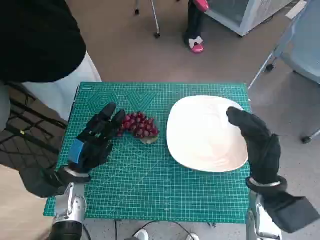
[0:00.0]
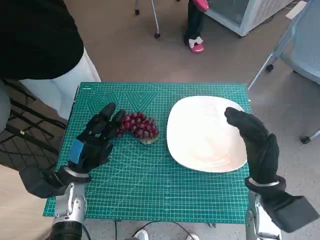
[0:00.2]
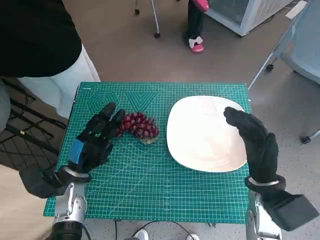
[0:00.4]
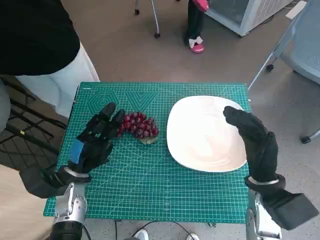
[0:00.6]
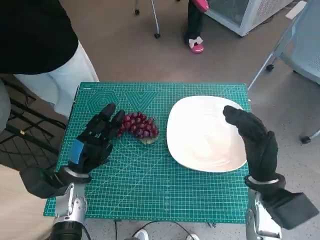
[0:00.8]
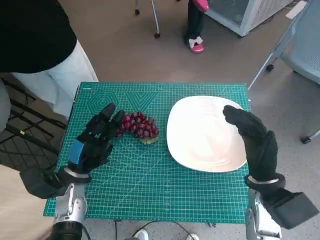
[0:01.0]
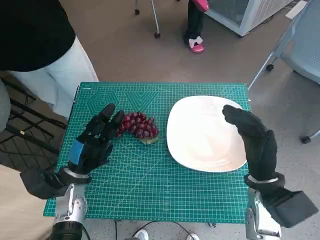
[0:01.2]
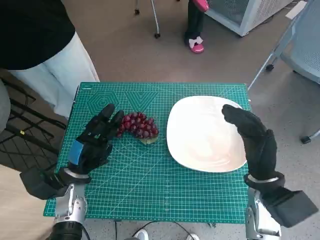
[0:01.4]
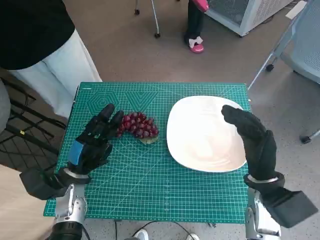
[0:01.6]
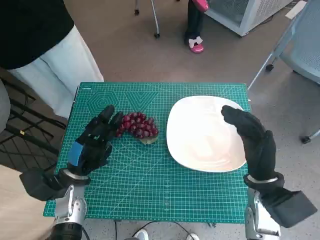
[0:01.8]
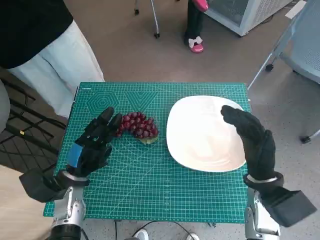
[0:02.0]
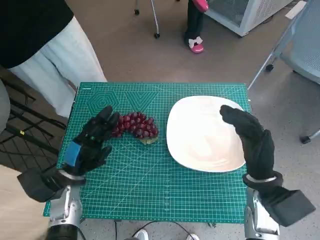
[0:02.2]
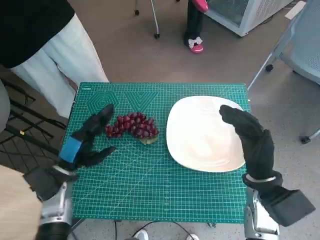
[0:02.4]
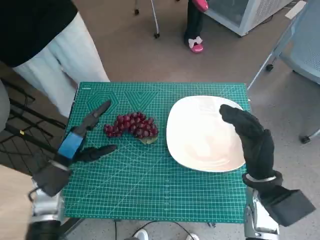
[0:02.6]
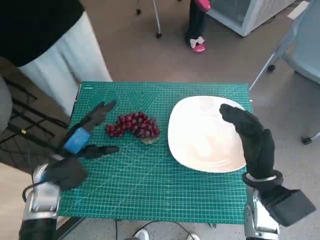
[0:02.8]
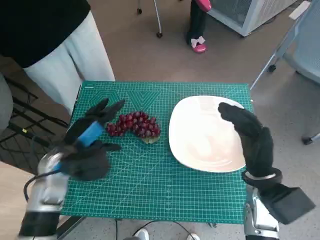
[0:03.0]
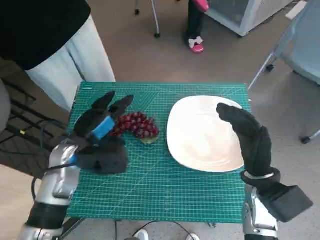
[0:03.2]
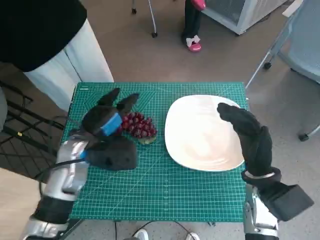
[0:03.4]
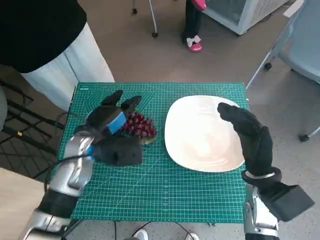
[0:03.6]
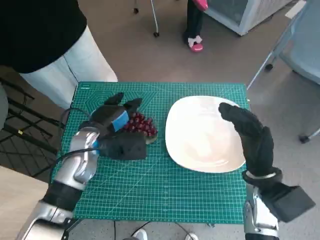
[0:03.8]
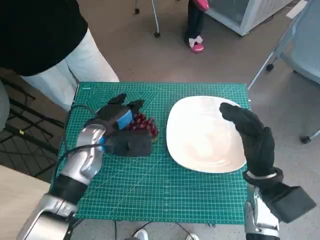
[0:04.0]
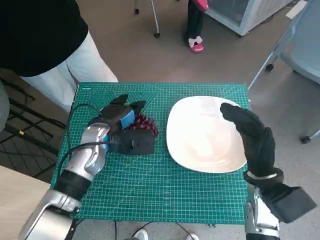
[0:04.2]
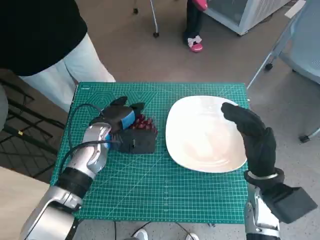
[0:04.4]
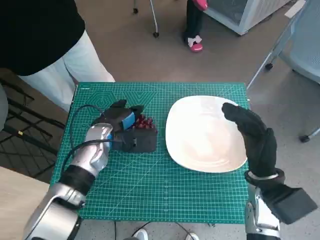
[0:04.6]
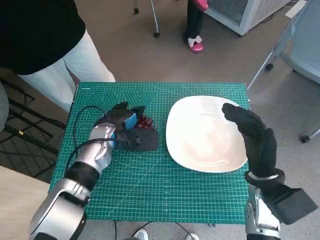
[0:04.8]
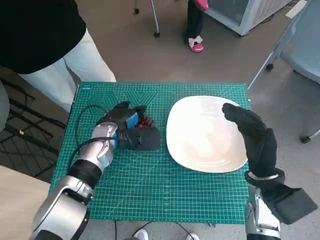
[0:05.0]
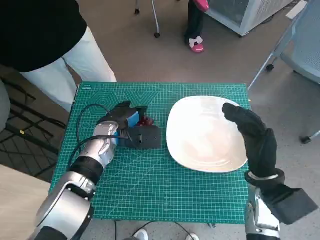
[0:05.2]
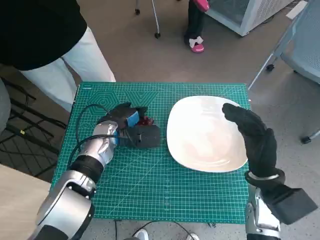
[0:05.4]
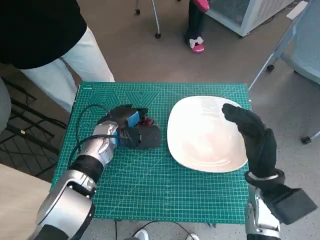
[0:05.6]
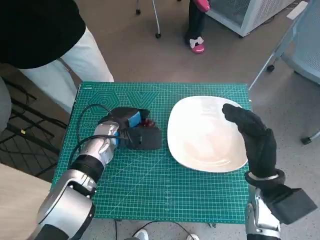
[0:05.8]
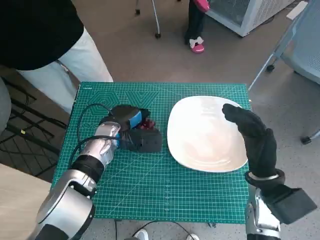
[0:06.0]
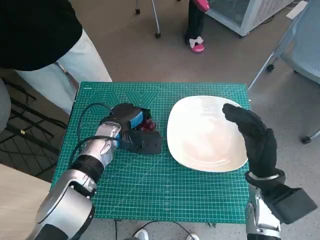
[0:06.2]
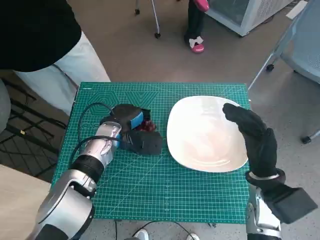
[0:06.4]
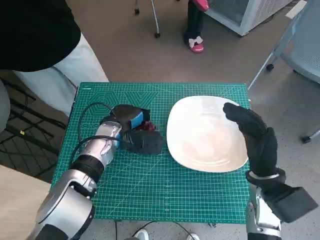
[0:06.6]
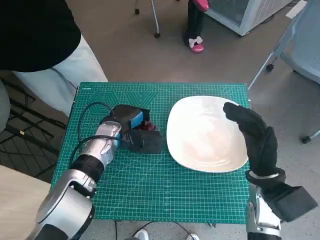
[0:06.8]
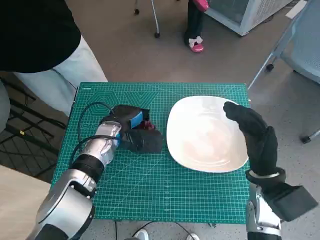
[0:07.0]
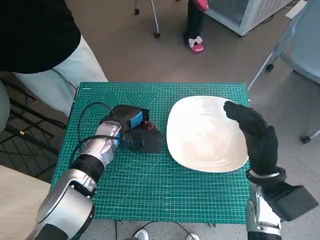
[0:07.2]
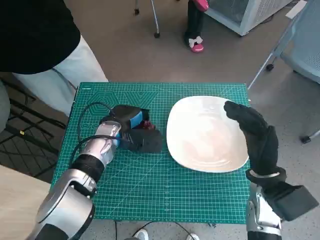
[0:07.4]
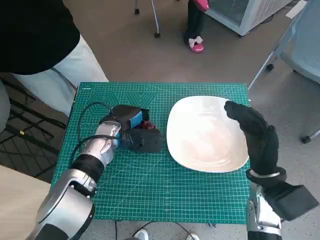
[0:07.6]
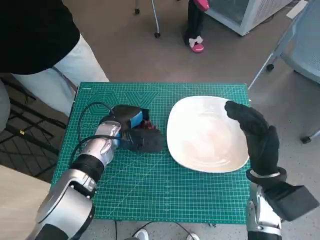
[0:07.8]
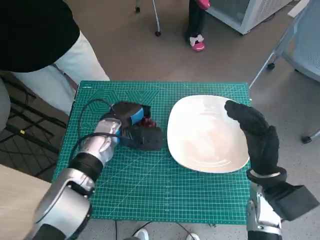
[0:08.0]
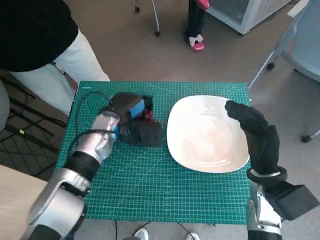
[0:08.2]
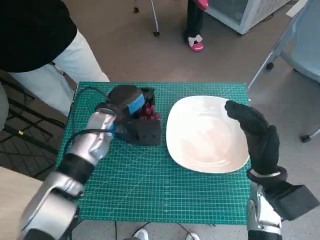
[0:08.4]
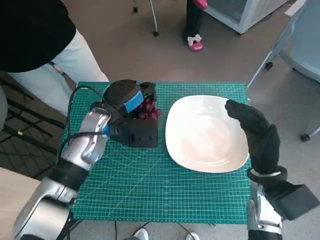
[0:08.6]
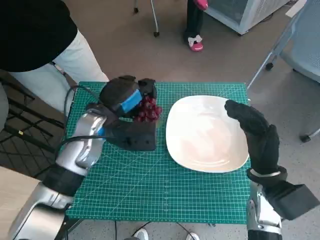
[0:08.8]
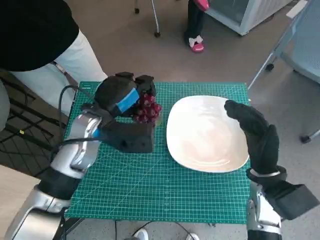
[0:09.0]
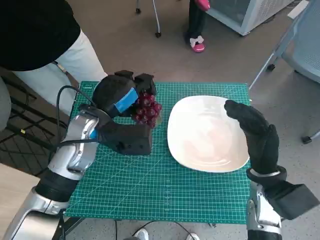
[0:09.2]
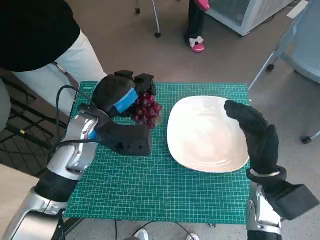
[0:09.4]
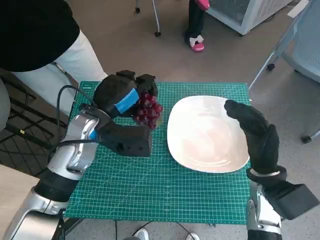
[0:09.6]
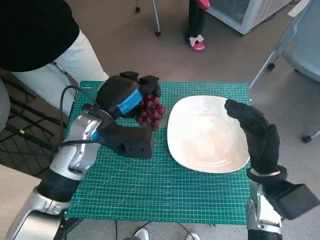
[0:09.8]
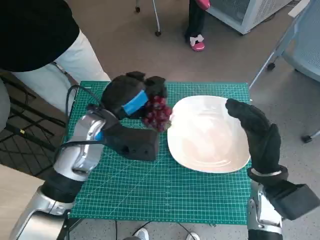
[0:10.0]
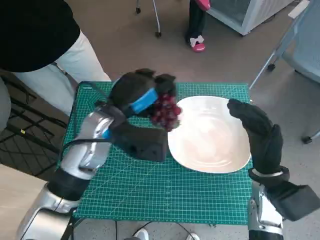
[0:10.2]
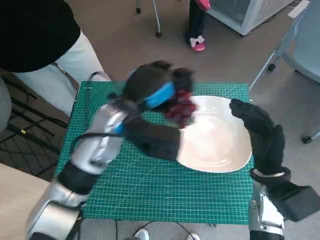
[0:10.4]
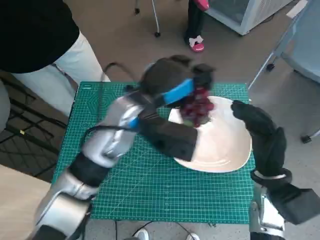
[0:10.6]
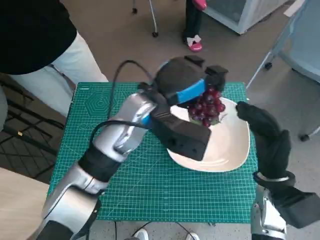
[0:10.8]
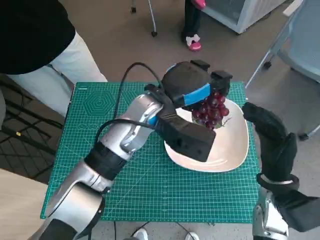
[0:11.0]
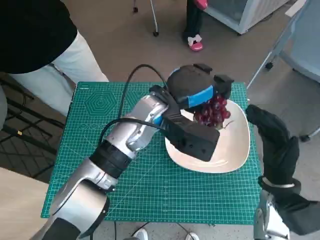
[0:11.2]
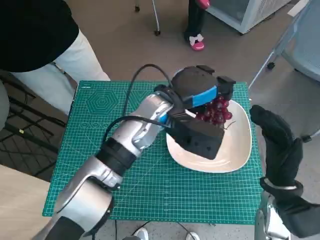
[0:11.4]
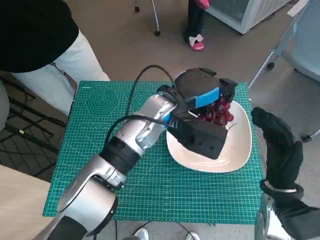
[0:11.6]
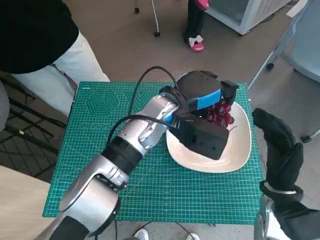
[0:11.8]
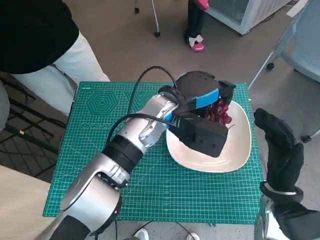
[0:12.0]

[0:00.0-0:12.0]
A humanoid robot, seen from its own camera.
Task of the whole recording: Pick up the grapes and put them on the plate.
Step, 0.0 to 6.4 s: Grasp the grapes with left hand.
1.6 to 3.0 s: The left hand is displaced upward by about 10 cm.
3.0 to 4.4 s: The left hand travels to the right and forward by about 10 cm.
4.4 to 6.0 s: There are only small adjustments of the hands.
6.0 to 7.6 s: The two hands keep their place.
7.6 to 9.0 s: The left hand moves upward, roughly 10 cm.
9.0 to 10.4 s: The left hand is displaced to the right by roughly 5 cm.
10.4 to 12.0 s: The left hand is displaced to the right by some 10 cm.

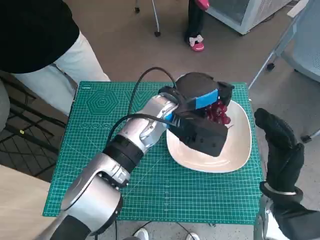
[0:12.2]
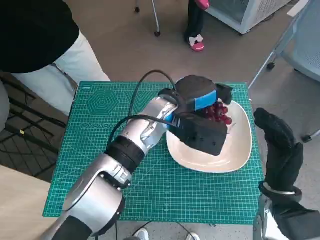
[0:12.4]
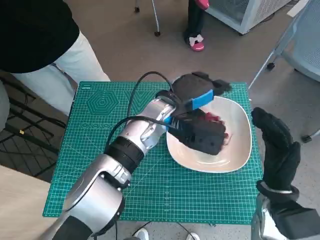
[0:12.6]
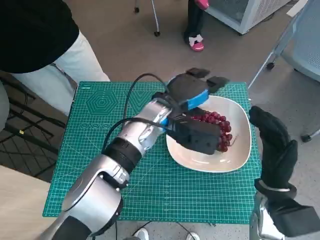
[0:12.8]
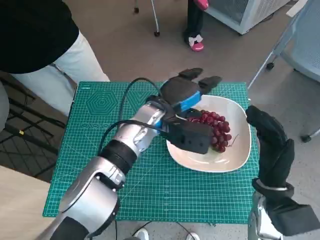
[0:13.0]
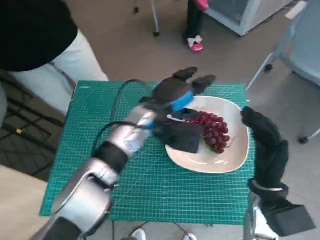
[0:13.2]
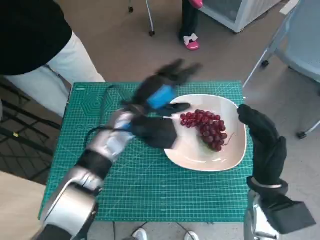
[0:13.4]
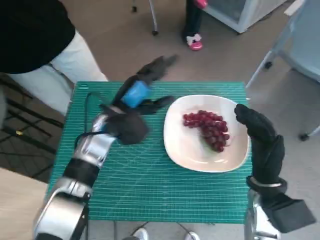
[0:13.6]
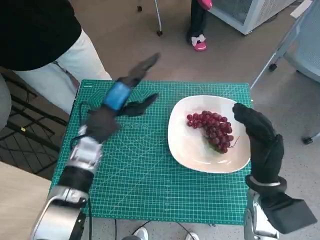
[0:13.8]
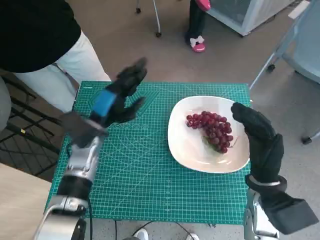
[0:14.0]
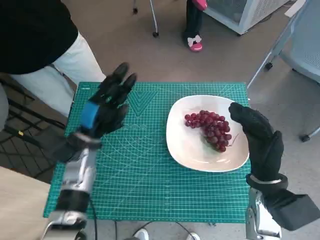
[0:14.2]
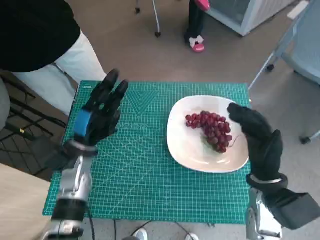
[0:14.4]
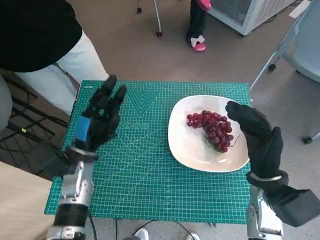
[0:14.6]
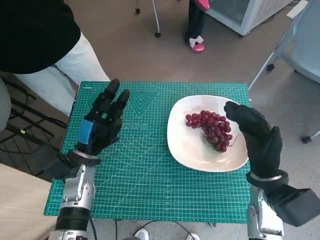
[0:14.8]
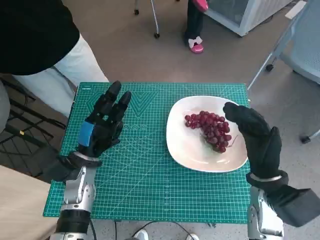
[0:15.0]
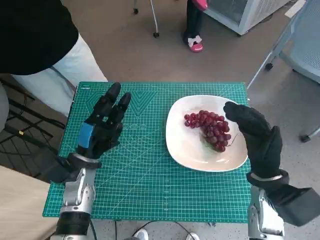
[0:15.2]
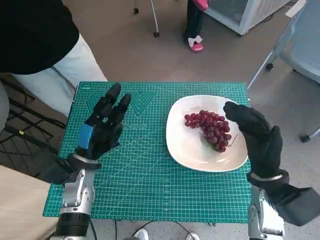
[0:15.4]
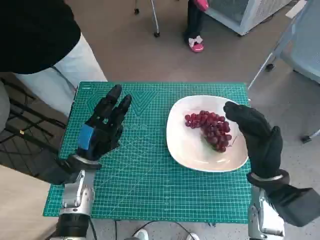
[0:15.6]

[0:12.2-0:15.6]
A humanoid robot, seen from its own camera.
Task of the whole recording: Pick up the grapes and put them on the plate.
12.2 to 13.8 s: The left hand heads to the left, covering about 15 cm.
13.8 to 15.6 s: The left hand travels backward and downward by approximately 10 cm.

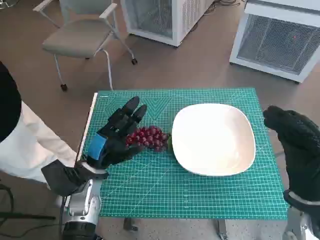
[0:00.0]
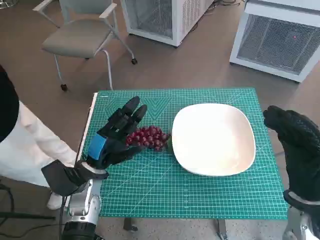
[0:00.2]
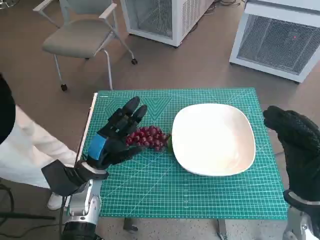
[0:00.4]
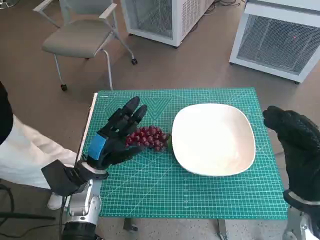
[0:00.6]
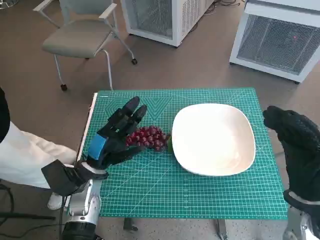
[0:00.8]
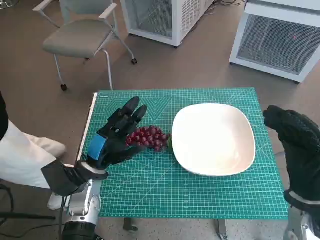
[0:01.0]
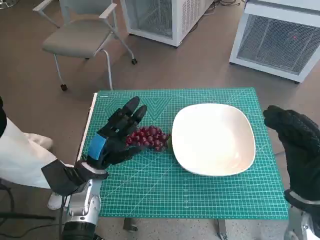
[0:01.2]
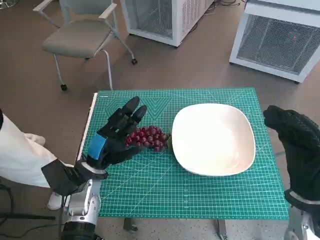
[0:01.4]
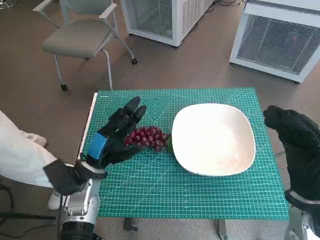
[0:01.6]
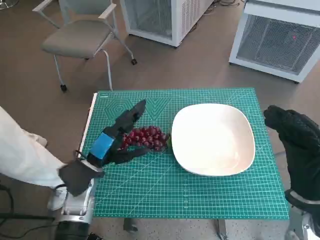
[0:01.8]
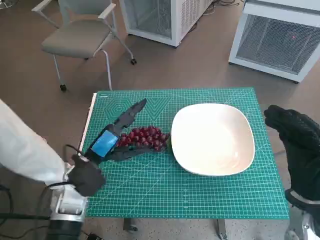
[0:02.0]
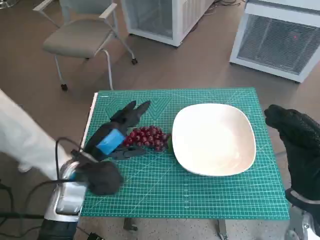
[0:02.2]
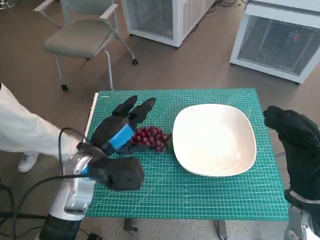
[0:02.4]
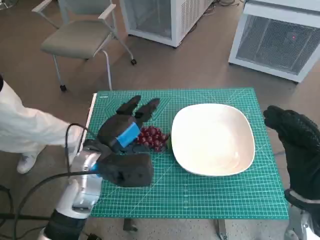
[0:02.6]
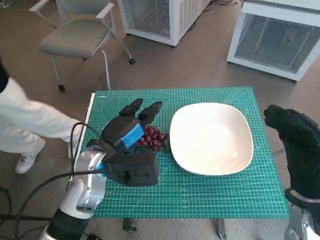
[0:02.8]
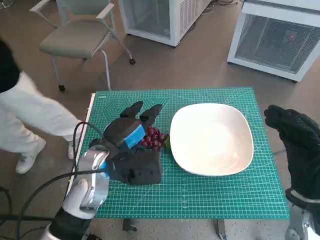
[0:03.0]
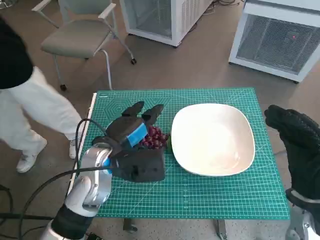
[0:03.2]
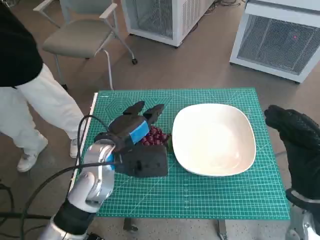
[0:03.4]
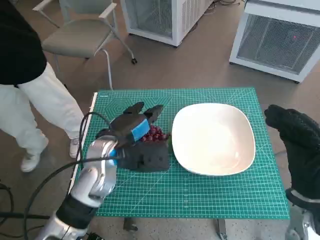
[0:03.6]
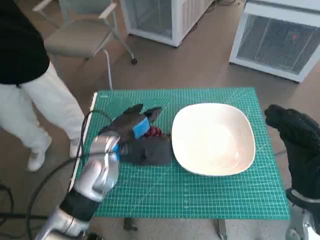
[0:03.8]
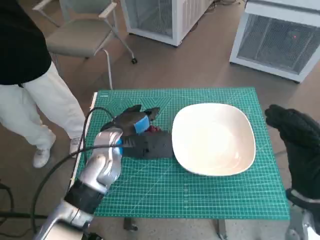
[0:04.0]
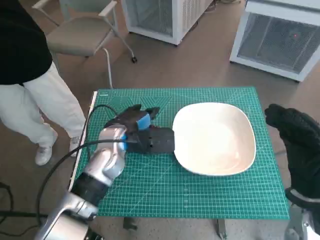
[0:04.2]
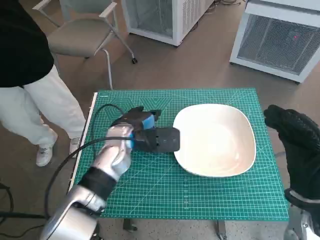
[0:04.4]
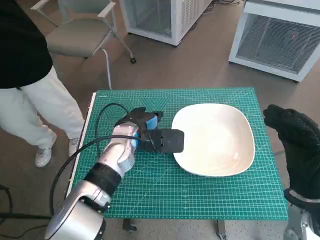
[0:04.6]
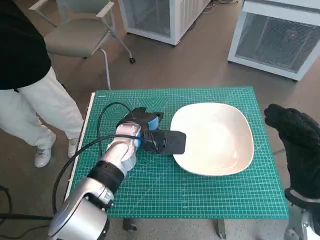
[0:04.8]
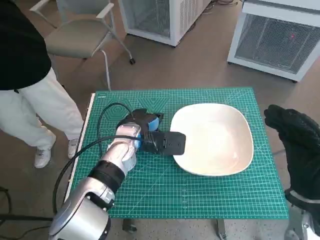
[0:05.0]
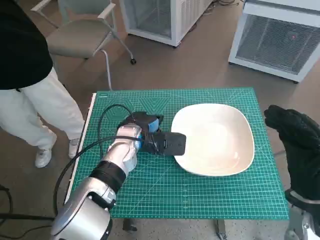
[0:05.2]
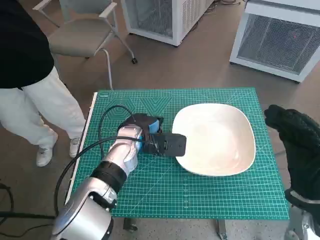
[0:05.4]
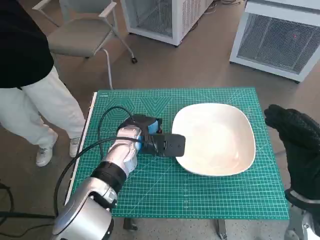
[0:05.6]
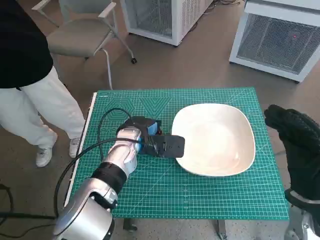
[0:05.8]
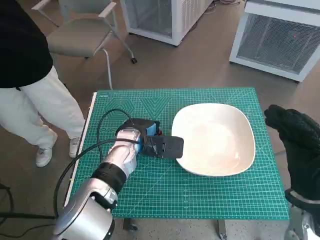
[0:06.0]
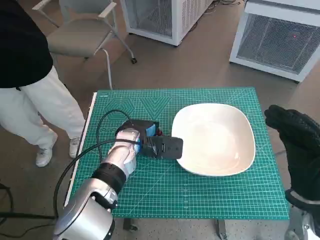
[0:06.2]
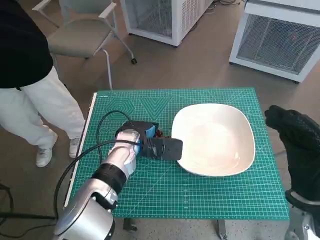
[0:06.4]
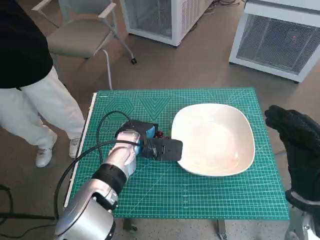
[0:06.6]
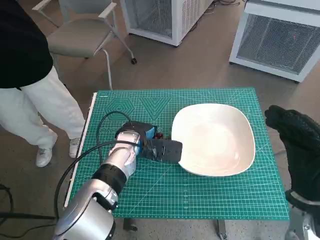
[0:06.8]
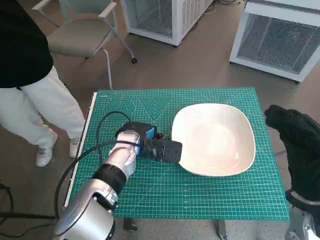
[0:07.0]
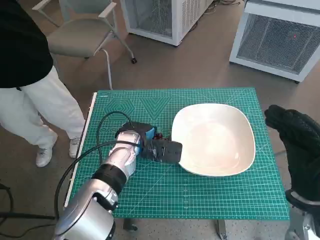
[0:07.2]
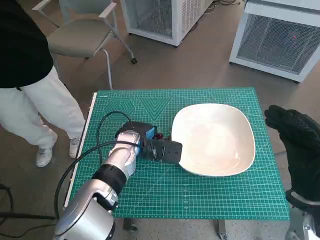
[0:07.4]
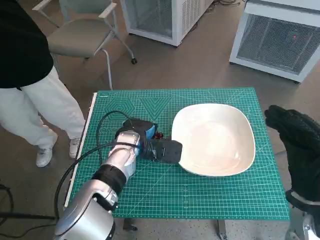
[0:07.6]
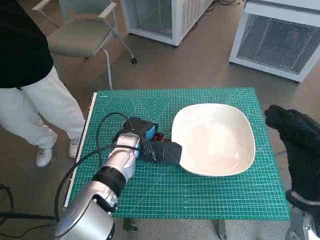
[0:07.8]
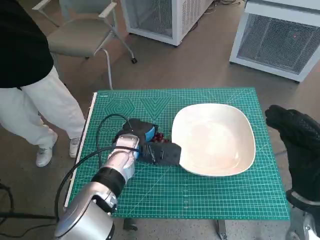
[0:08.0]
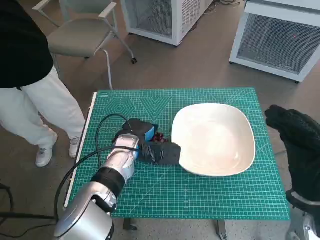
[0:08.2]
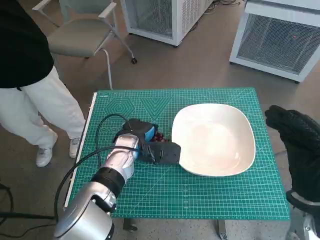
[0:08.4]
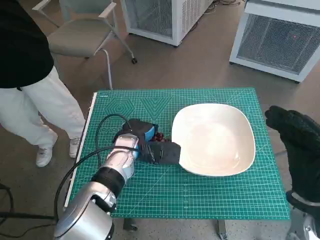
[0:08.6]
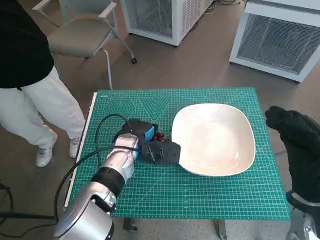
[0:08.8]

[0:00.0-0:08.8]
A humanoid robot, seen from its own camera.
Task of the whole recording: Pick up the grapes and put them on the plate.
Step, 0.0 to 7.8 s: Grasp the grapes with left hand.
1.4 to 3.0 s: The left hand travels upward and to the right by about 10 cm.
3.0 to 4.4 s: The left hand travels forward by roughly 5 cm.
4.4 to 8.8 s: The hands move only a little.
